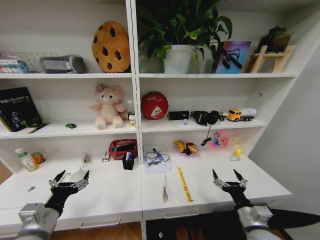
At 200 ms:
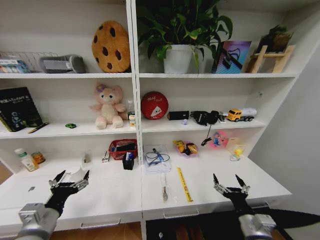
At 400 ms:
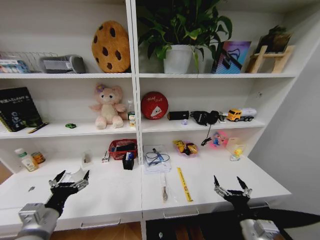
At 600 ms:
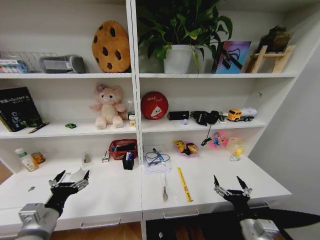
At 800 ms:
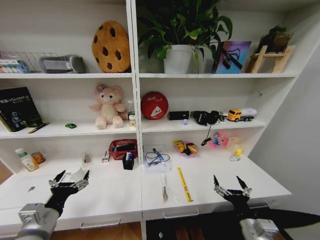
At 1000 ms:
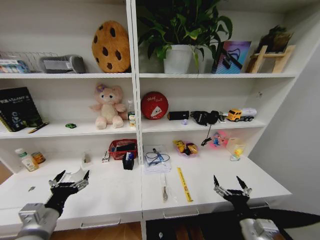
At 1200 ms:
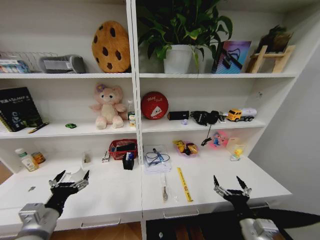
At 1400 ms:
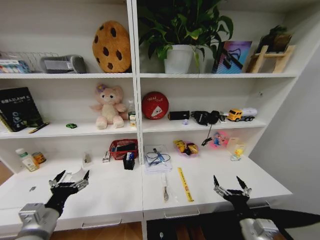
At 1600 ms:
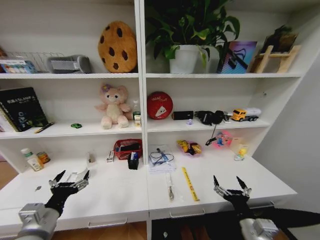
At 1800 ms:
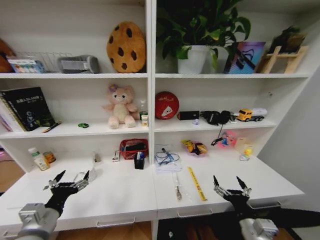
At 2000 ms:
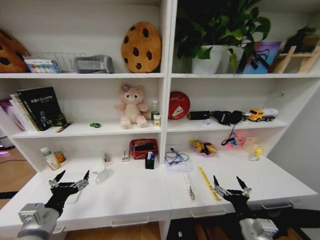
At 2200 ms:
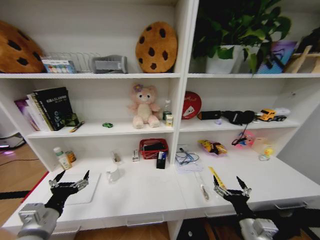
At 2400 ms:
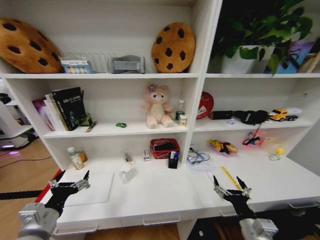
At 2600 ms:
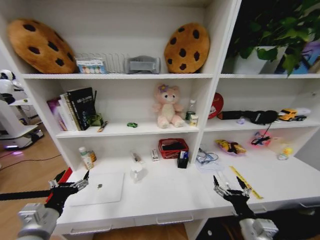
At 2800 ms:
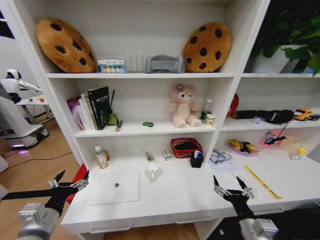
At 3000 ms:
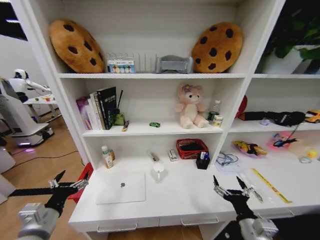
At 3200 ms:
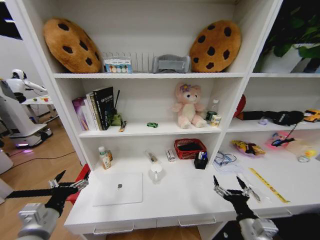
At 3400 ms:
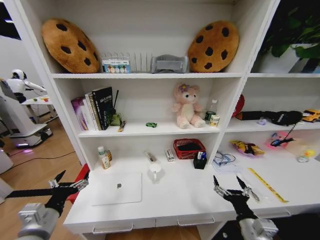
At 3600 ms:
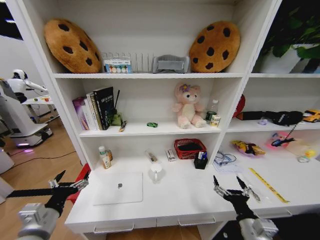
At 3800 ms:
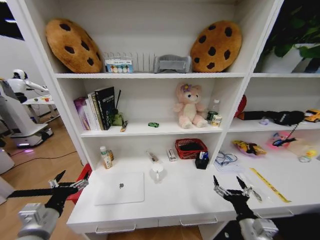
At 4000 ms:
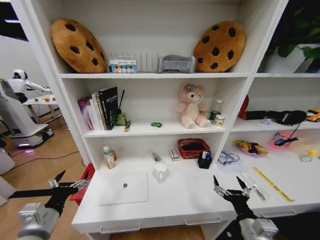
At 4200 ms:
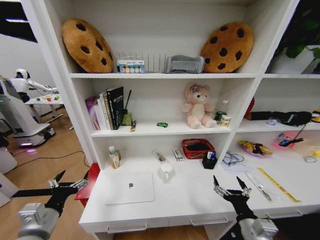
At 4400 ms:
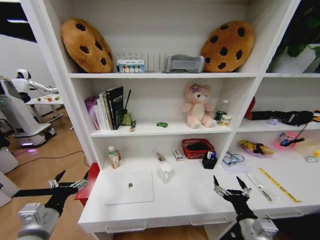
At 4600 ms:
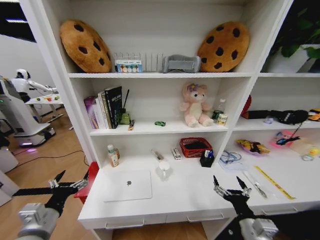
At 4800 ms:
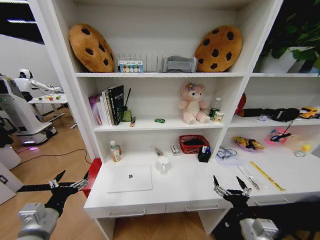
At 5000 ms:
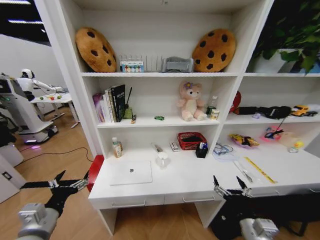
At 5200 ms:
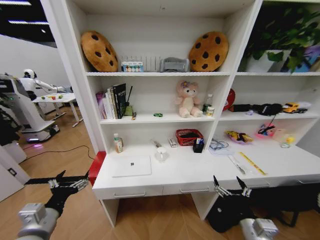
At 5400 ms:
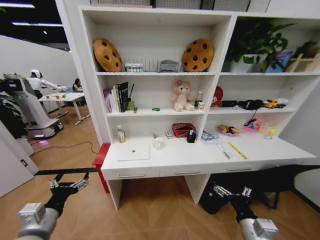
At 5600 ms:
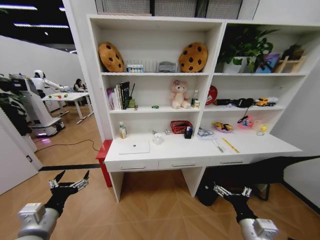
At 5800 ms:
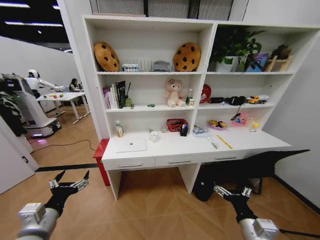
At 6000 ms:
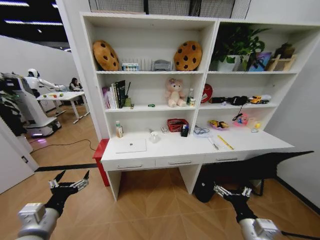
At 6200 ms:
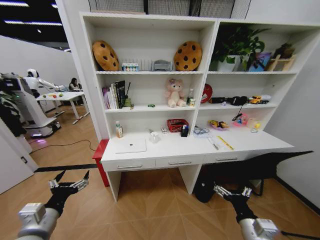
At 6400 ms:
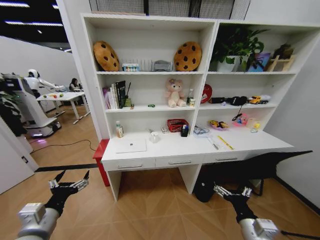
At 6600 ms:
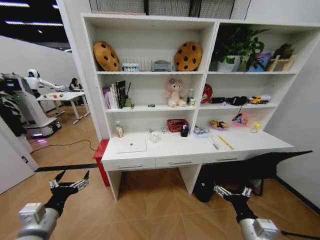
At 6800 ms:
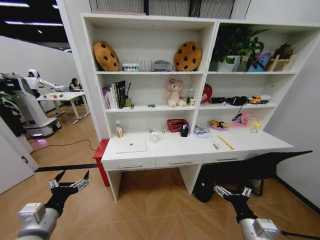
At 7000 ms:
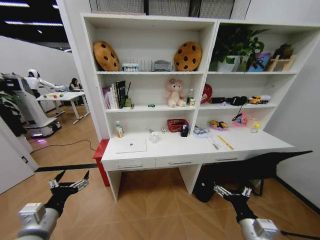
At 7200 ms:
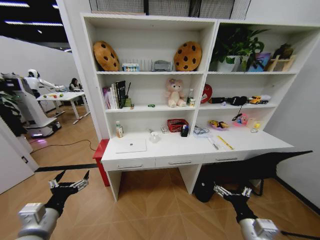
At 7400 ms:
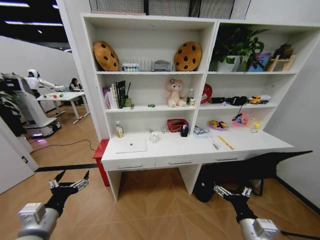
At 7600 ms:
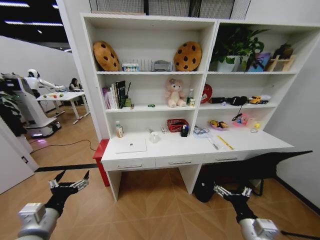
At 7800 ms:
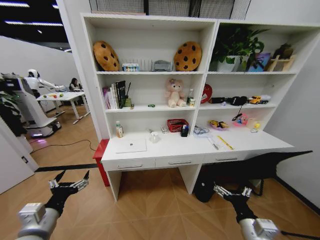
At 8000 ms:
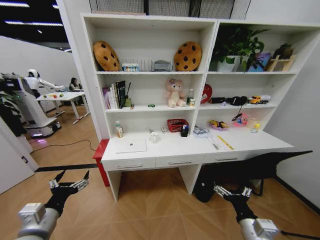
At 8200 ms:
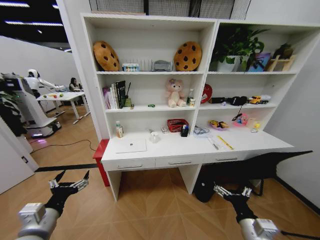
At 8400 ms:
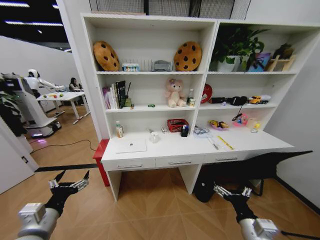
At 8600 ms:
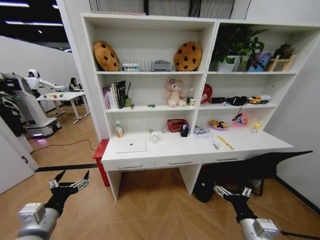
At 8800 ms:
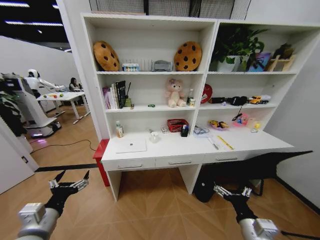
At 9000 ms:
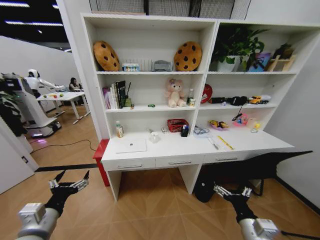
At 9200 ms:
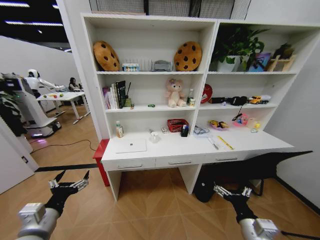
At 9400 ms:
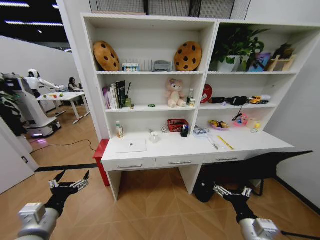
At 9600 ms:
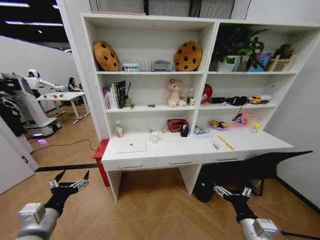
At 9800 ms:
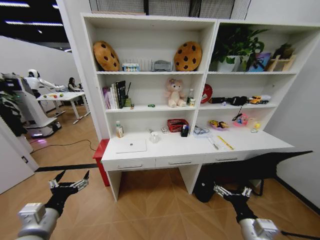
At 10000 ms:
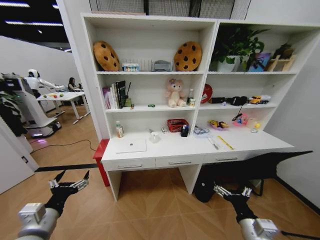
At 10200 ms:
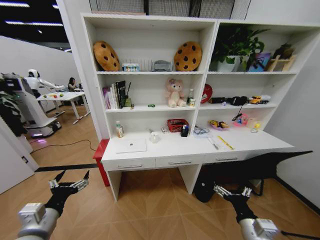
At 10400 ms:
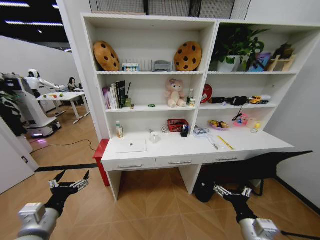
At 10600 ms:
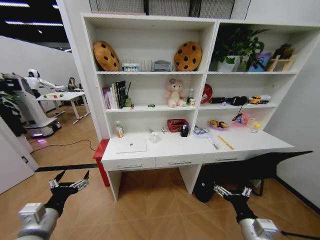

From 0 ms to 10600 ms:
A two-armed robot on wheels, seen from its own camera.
Task of the whole recording: Organize the objects on the table.
From 6000 ms to 10600 ms: The two grippers keep their place.

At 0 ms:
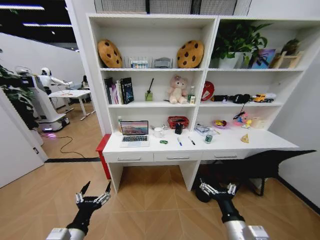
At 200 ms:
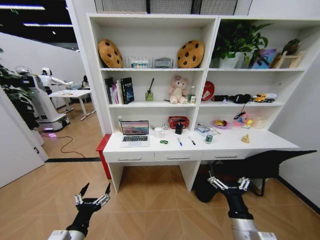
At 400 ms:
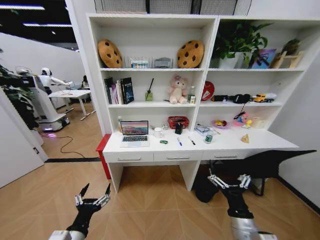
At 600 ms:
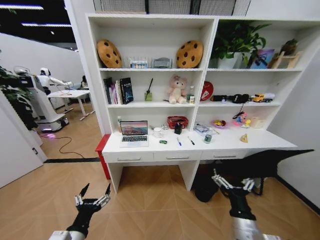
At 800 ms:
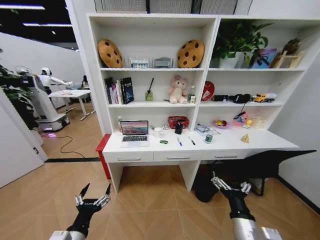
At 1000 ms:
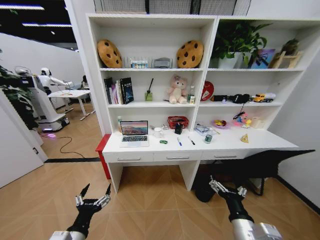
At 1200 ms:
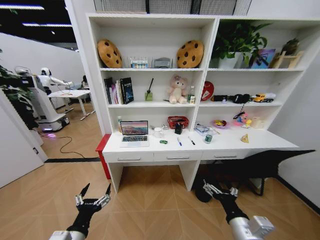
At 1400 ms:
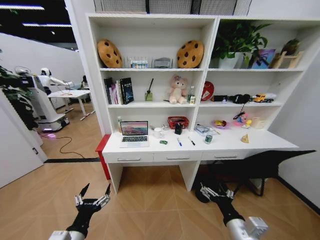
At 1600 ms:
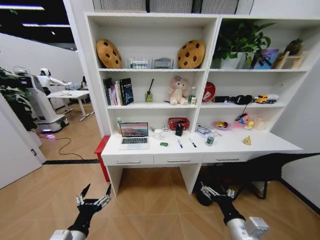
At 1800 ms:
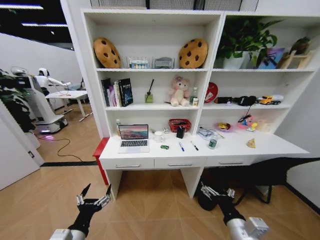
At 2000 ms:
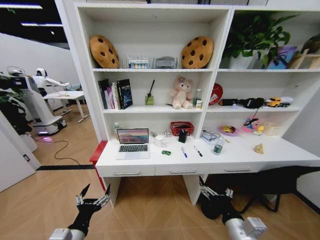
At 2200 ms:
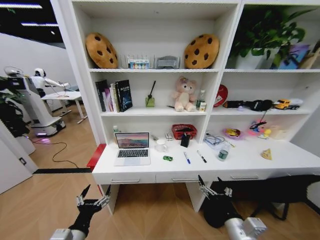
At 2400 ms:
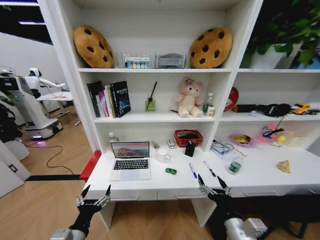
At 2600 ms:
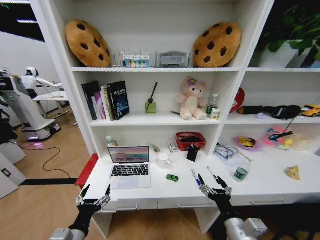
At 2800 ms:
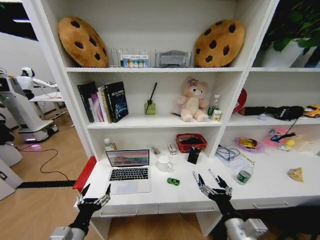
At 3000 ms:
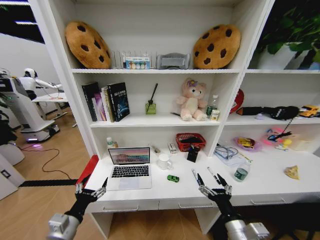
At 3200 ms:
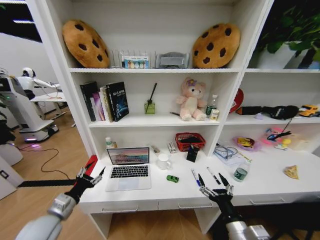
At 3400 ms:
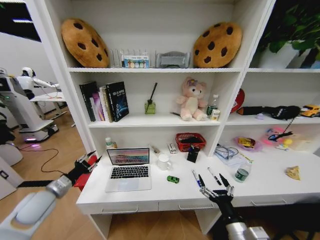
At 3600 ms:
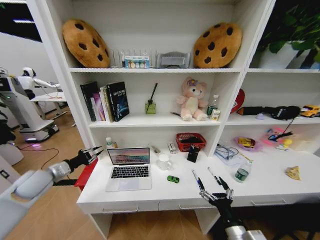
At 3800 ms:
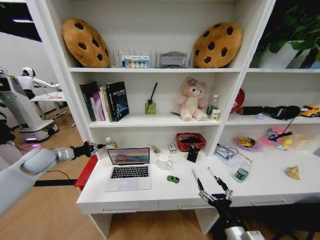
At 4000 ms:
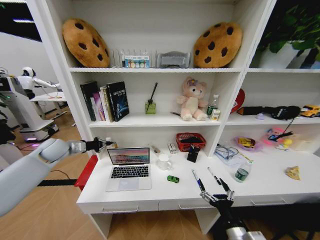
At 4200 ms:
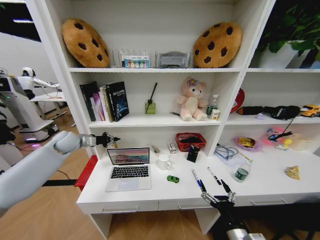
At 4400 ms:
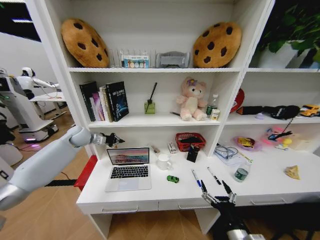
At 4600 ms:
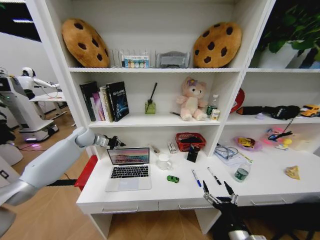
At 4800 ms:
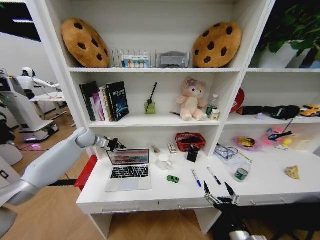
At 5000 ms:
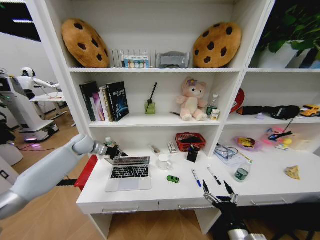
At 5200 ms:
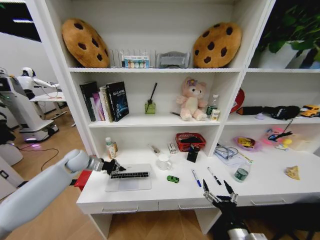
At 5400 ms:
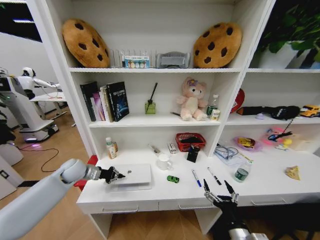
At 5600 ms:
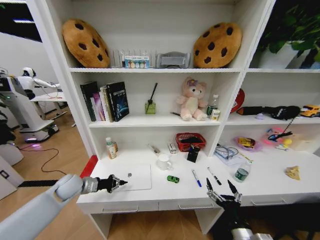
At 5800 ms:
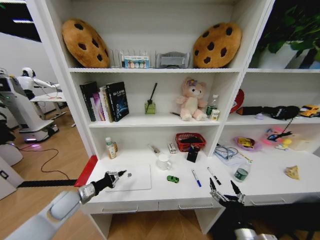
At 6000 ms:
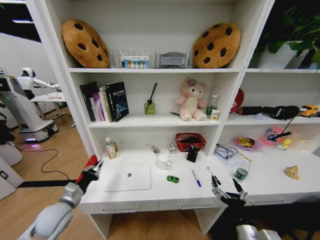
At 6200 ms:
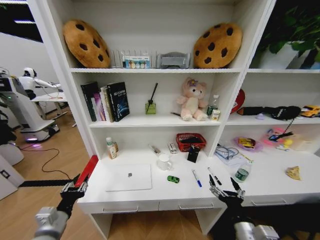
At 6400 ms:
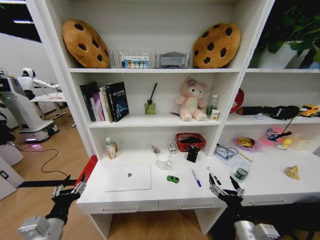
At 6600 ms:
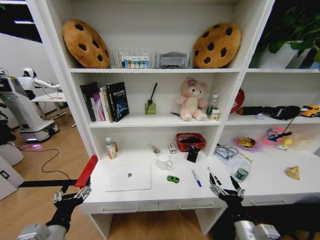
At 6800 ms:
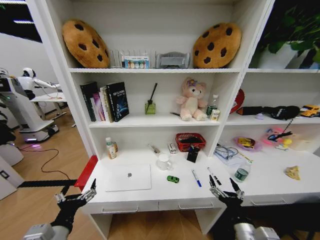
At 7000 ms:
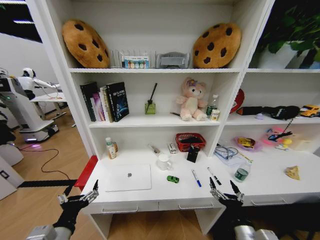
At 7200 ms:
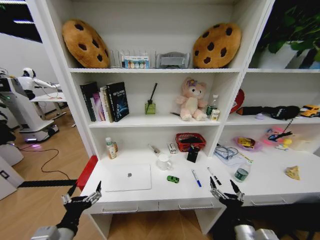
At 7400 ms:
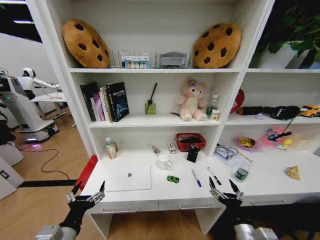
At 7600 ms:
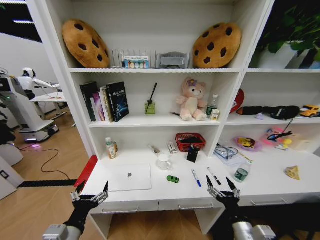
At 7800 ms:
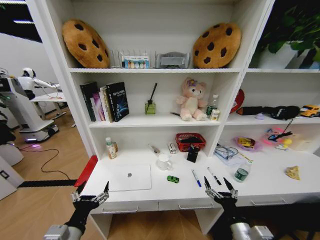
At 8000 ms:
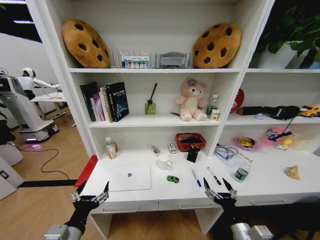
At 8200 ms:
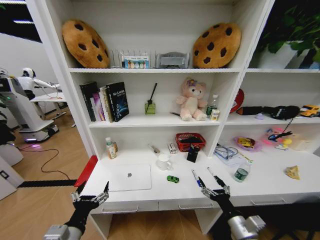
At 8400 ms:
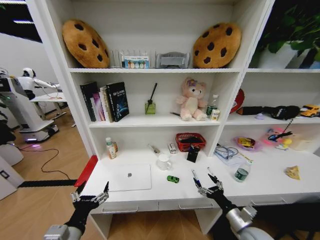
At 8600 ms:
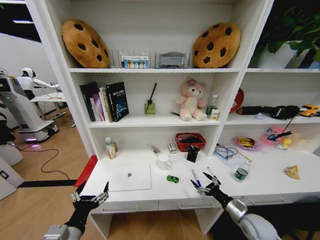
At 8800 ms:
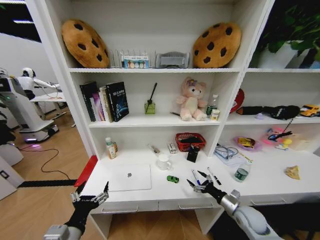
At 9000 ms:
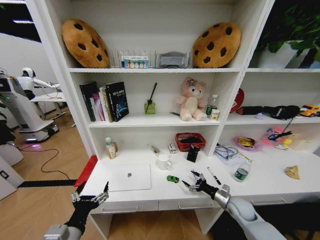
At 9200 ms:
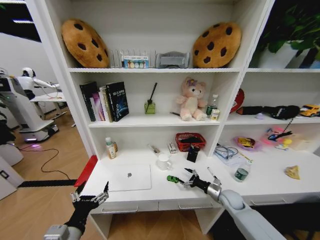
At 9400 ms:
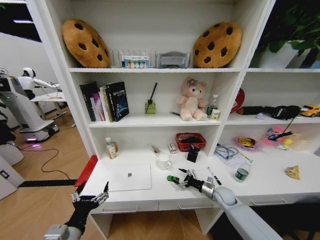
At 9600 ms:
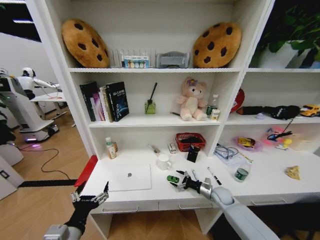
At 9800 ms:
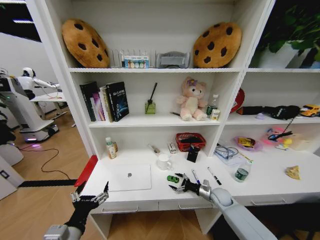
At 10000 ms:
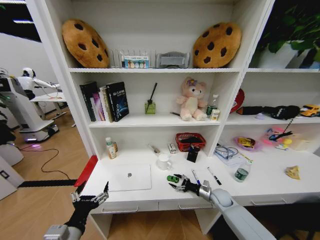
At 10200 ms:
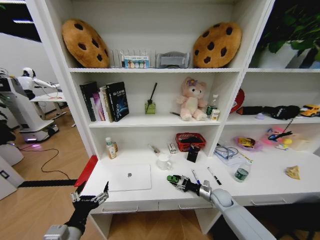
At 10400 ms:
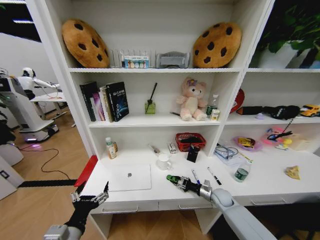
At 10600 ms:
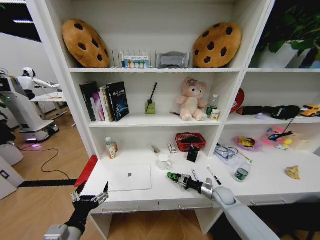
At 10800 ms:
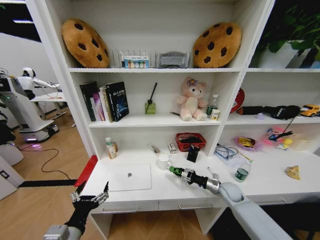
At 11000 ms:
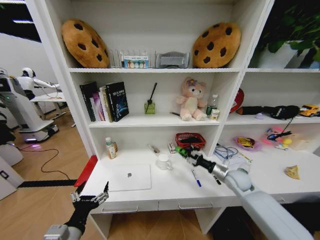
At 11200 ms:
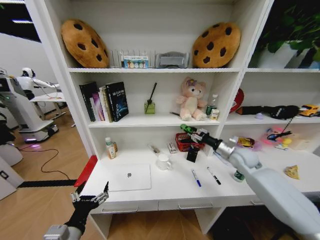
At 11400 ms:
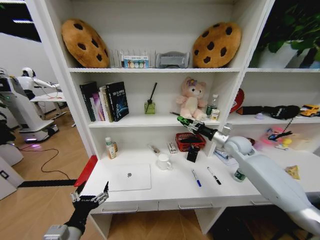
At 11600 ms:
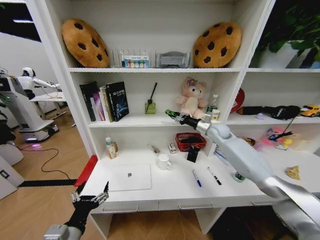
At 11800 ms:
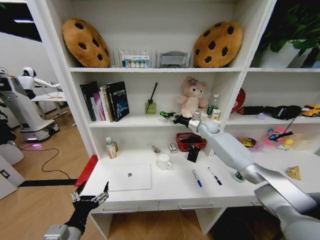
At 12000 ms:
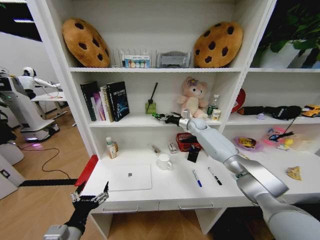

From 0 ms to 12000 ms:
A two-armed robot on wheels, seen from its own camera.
Task of the whole recording: Organize the objects on the table.
From 1600 ms to 3000 ms: The left gripper changes place by about 5 cm.
From 3000 ms to 4400 ms: The left gripper travels forward by some 40 cm, and closes its fingers.
From 4400 ms to 6000 ms: The left gripper heads backward and downward, covering roughly 35 cm.
From 6000 ms to 7600 ms: The left gripper travels backward and to the right by roughly 15 cm, and opens up.
From 7600 ms to 9000 ms: The right gripper is displaced forward, to the right and downward by about 20 cm.
From 9000 ms to 10400 ms: The right gripper is displaced forward by about 5 cm, and closes.
From 10400 ms to 12000 ms: The right gripper goes roughly 40 cm upward and forward.
